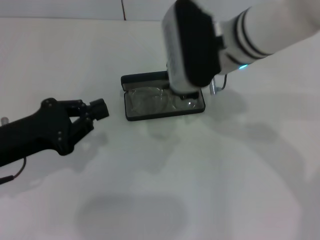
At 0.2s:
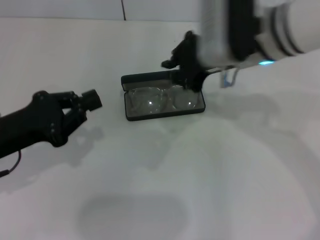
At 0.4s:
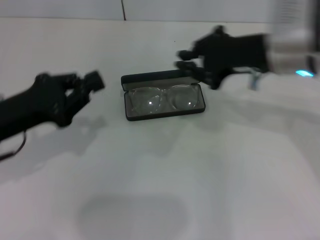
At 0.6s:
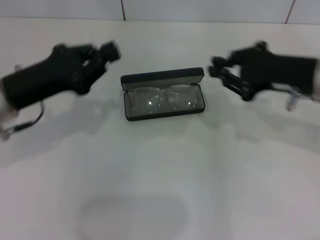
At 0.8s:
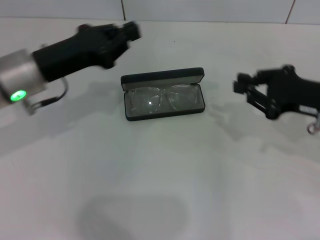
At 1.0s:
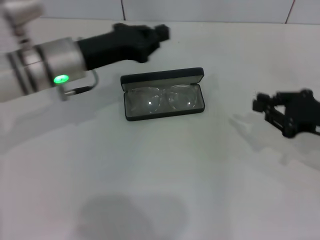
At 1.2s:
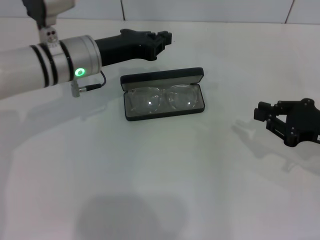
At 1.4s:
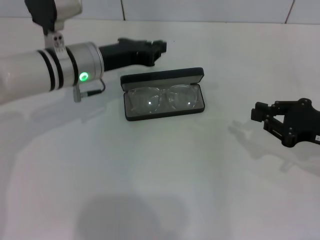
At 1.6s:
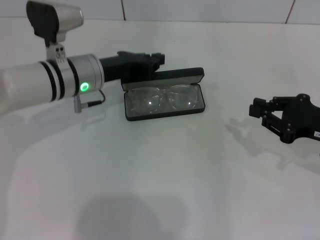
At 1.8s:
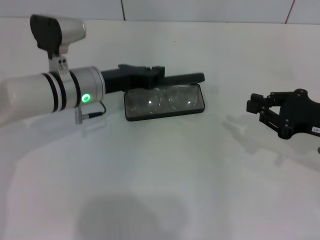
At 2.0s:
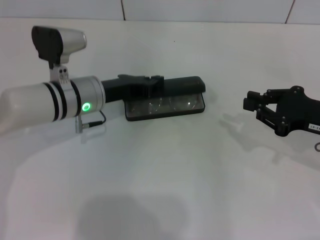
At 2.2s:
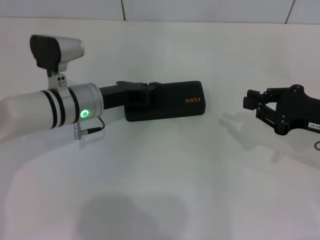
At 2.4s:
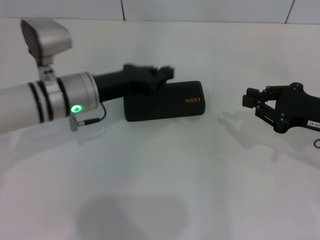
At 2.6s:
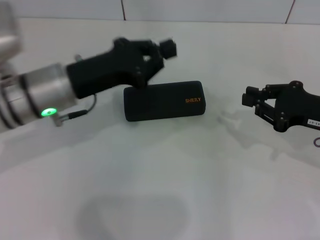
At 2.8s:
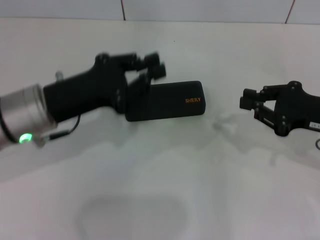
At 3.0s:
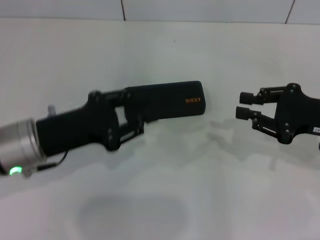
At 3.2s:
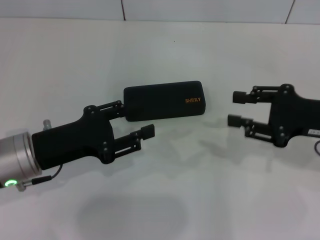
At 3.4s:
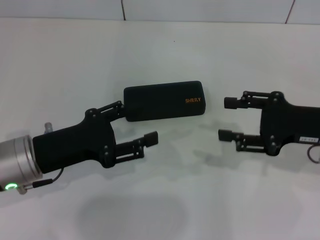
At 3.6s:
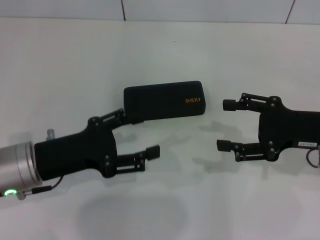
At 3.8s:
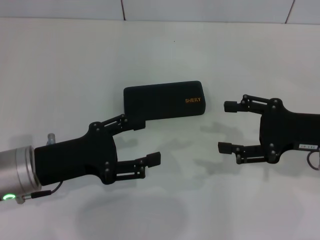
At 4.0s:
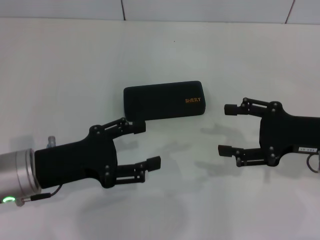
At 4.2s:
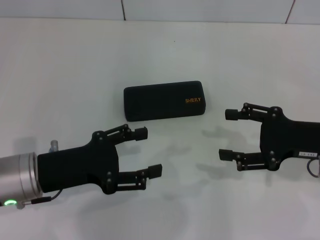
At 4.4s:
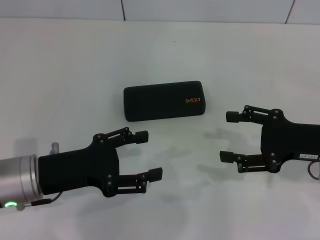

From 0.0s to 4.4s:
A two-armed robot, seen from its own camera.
Step, from 0.2s to 2.0s: Close the glasses case with your left hand.
From 0.0s to 1.4s: The right gripper travels to the right, downward and backward by about 25 cm. The left gripper moves forward and to the right, some 20 cm.
From 1.4s to 3.0s: The left gripper is displaced backward and to the left by roughly 15 cm.
From 3.0s to 4.4s: The left gripper opens up, while the right gripper opens up.

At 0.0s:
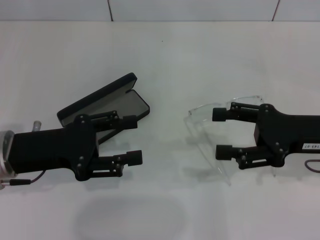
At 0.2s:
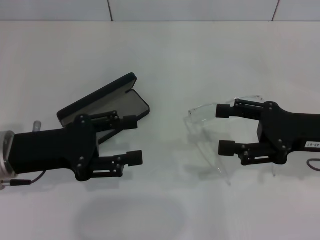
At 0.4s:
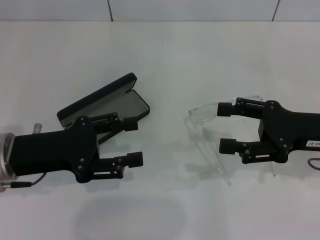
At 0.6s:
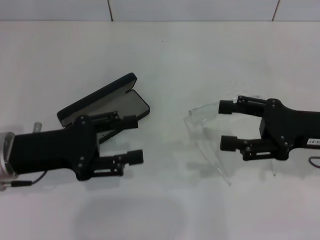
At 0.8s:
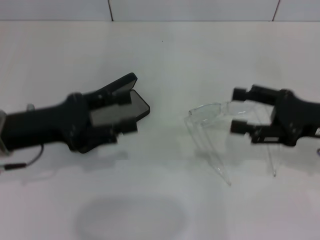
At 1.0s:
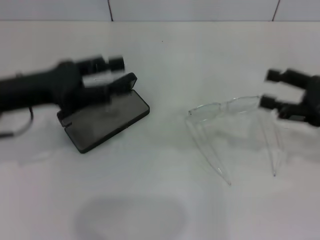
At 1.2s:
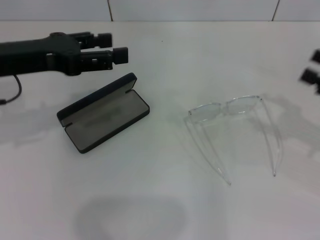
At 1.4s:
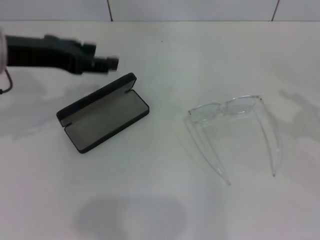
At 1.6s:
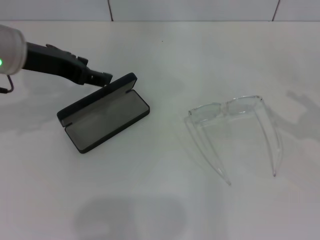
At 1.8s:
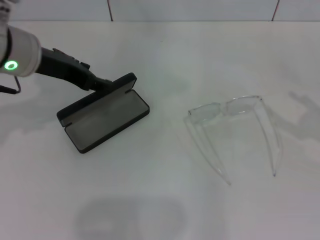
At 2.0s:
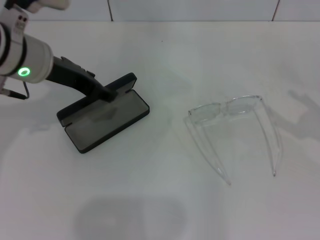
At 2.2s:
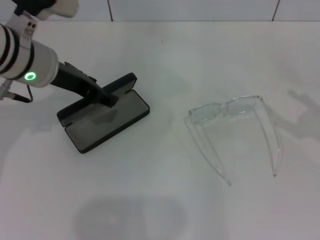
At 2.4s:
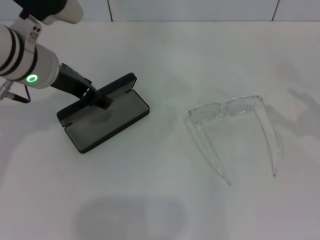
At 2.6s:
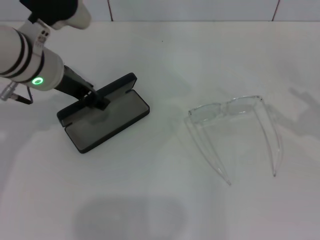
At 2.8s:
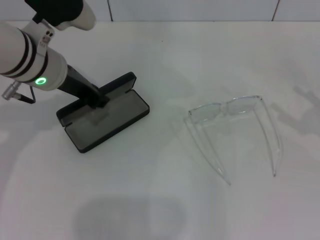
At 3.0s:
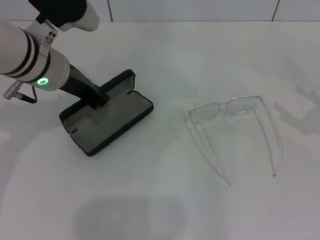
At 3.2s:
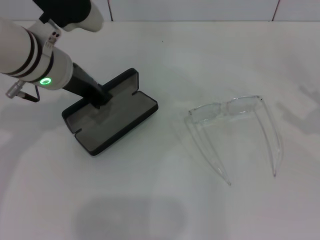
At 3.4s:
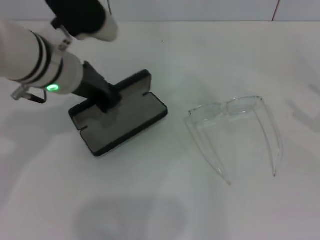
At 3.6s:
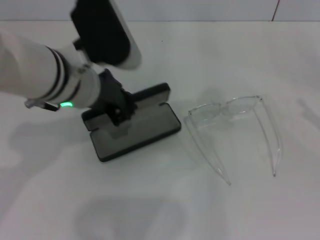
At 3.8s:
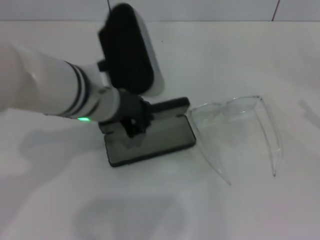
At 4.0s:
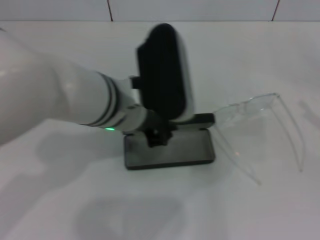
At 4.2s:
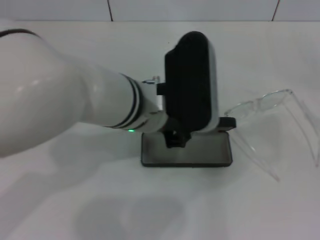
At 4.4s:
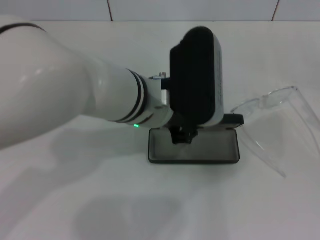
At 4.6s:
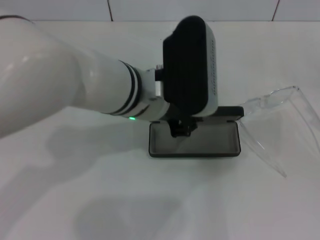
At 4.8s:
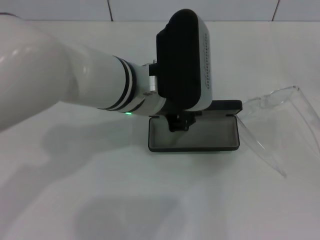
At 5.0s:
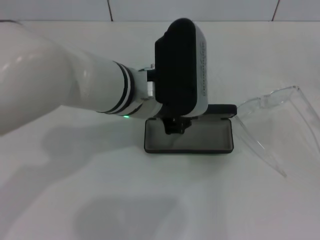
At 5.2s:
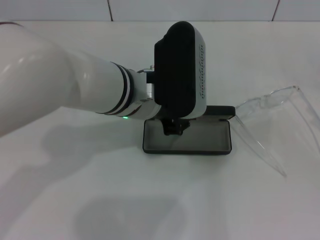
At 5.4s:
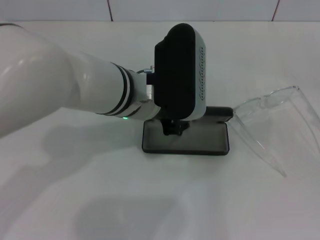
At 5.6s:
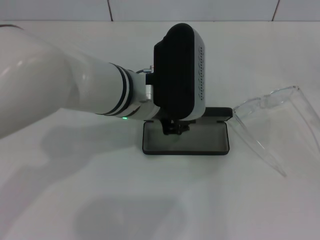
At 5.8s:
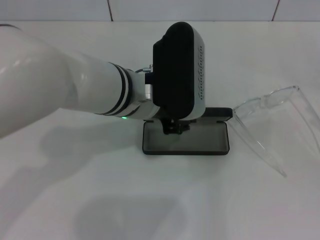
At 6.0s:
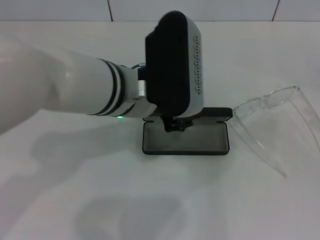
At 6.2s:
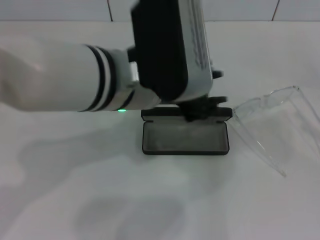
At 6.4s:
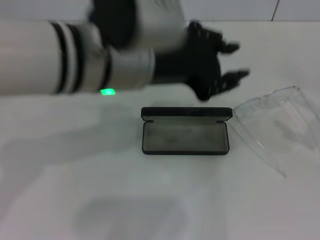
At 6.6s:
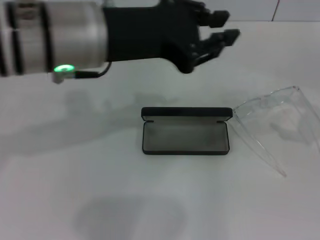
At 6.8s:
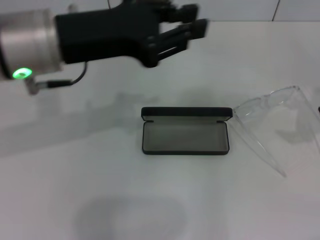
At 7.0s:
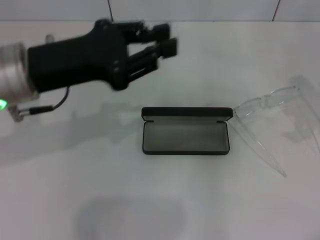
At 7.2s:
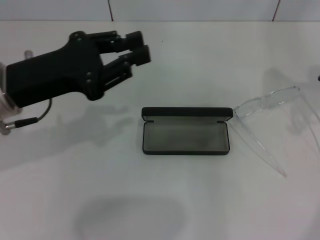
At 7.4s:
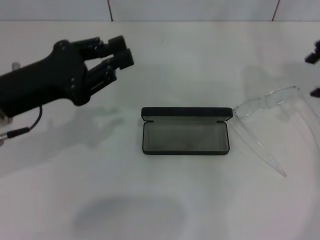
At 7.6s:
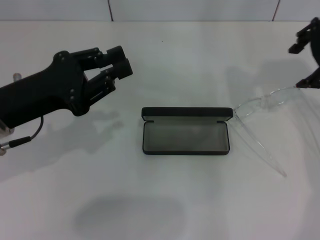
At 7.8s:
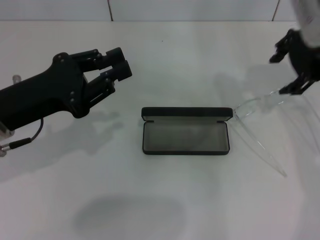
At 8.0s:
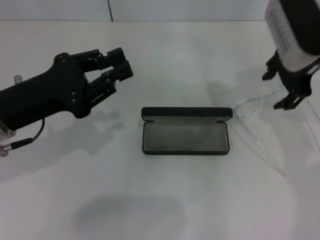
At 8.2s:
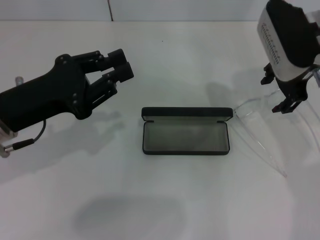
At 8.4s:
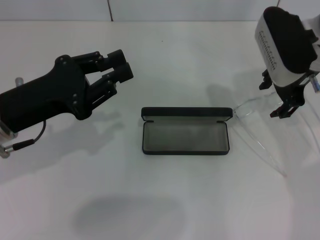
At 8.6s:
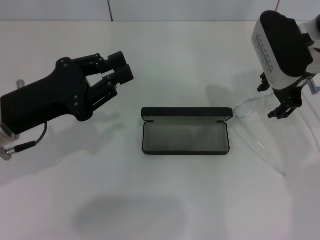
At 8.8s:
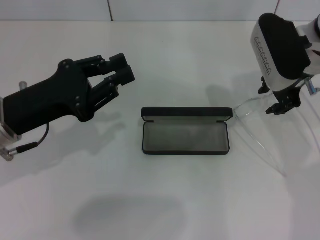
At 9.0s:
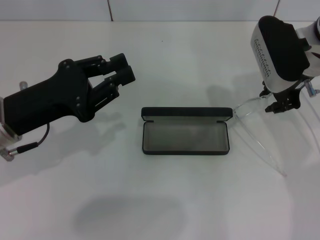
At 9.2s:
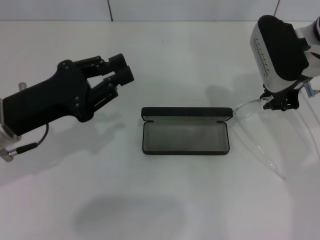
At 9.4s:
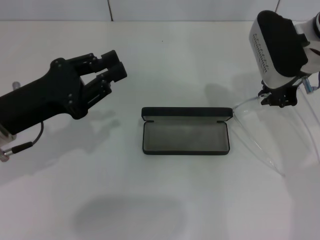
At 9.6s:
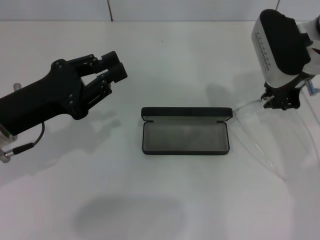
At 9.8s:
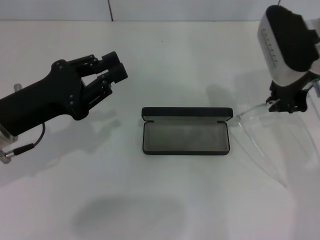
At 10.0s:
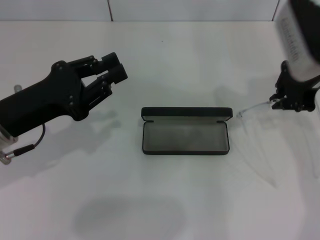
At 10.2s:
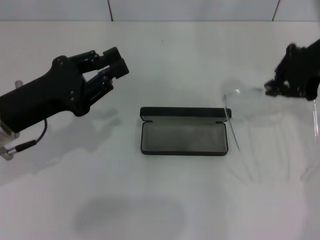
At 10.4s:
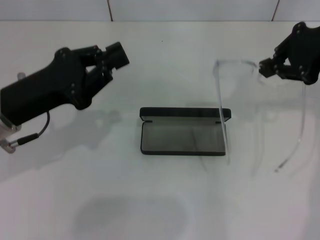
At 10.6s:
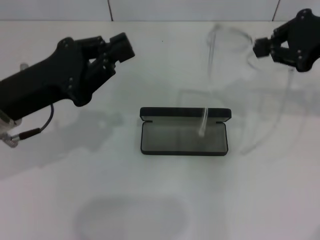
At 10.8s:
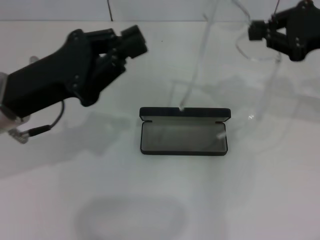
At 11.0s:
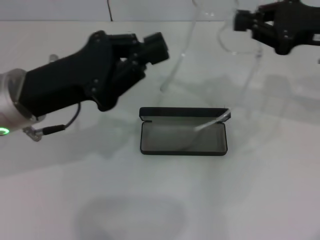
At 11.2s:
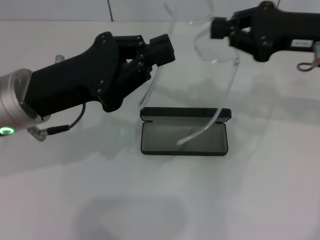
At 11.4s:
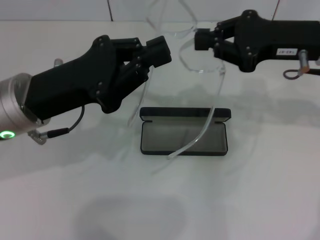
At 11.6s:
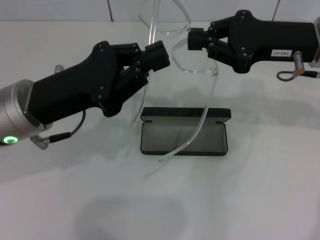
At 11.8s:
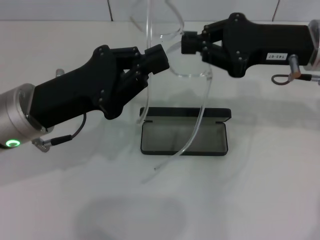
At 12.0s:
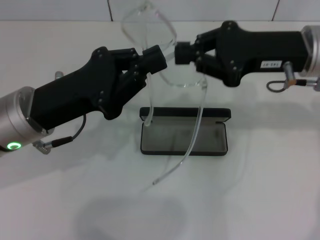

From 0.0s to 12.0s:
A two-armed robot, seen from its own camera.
Step, from 0.0s to 2.8s: Grab the glasses case with your left hand.
Step, from 3.0s to 5.8s: Place the glasses case in the center of the table with your left hand.
Step, from 6.2s to 9.0s: Grab the eyeglass frame with your right hand.
From 0.0s to 1.6s: The right gripper heads to the right, covering approximately 10 cm. Meanwhile the left gripper goes about 15 cm upward and forward.
From 1.6s to 3.0s: The left gripper moves about 5 cm, and closes.
From 3.0s to 4.4s: The left gripper travels to the right and backward by about 15 cm.
From 4.4s to 6.0s: The grippers move only a little.
From 6.0s to 7.6s: The right gripper heads forward, upward and to the left, covering about 30 cm. The left gripper is displaced to the left by roughly 20 cm.
From 7.6s to 9.0s: The right gripper shifts approximately 10 cm downward, and closes its fingers.
From 9.0s to 10.4s: The right gripper travels upward and to the right by some 10 cm, and closes.
From 10.4s to 12.0s: The right gripper goes roughly 10 cm to the left and downward.

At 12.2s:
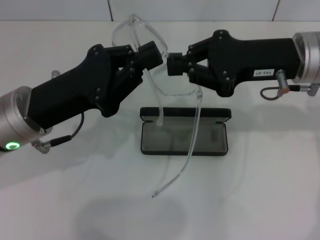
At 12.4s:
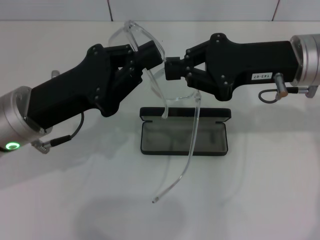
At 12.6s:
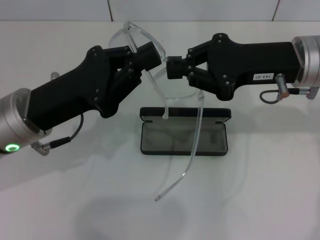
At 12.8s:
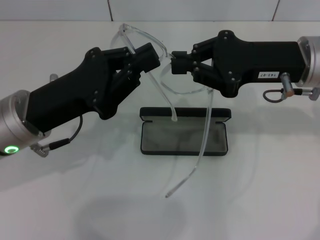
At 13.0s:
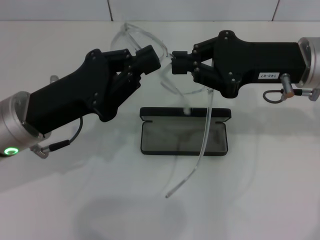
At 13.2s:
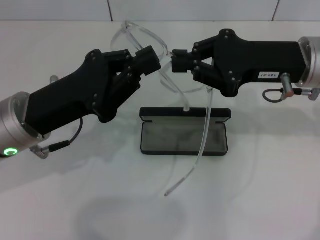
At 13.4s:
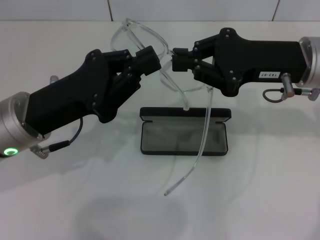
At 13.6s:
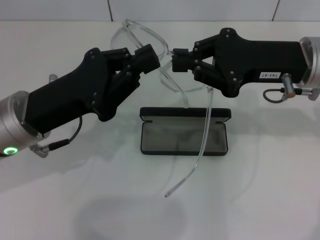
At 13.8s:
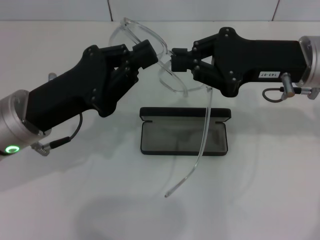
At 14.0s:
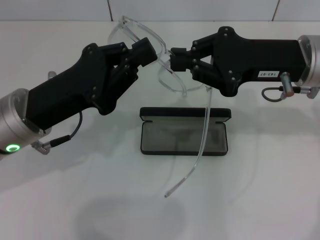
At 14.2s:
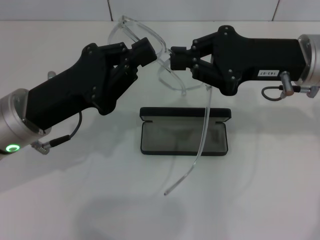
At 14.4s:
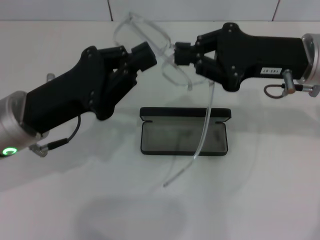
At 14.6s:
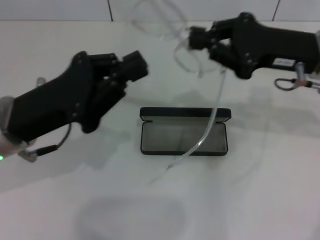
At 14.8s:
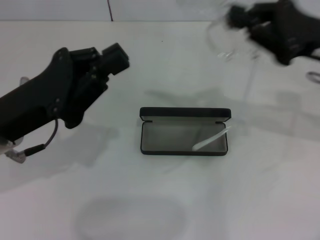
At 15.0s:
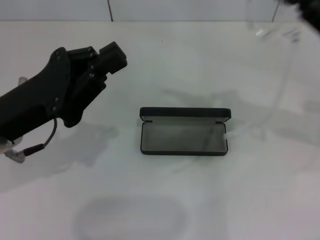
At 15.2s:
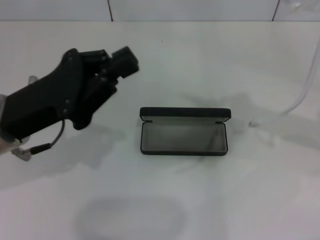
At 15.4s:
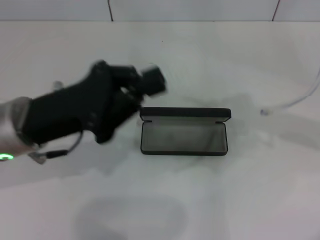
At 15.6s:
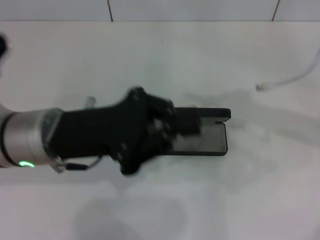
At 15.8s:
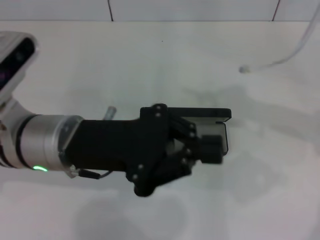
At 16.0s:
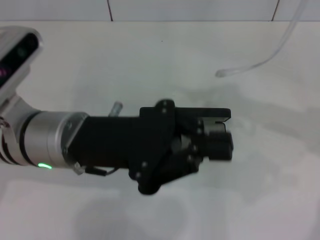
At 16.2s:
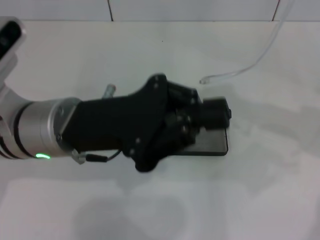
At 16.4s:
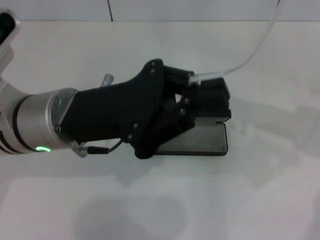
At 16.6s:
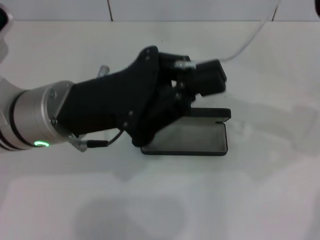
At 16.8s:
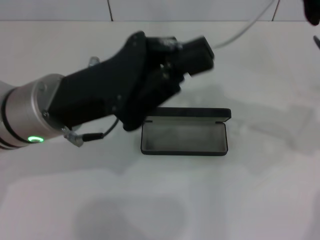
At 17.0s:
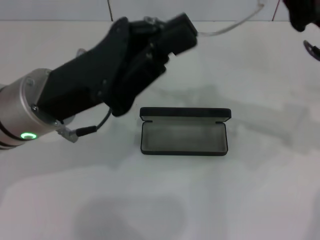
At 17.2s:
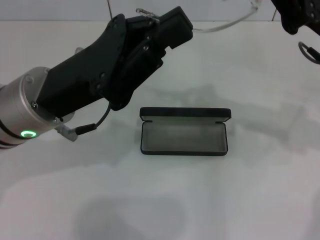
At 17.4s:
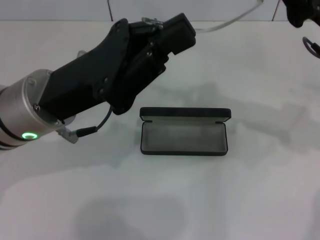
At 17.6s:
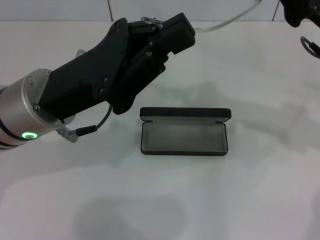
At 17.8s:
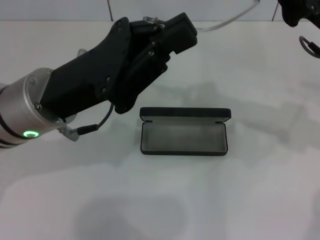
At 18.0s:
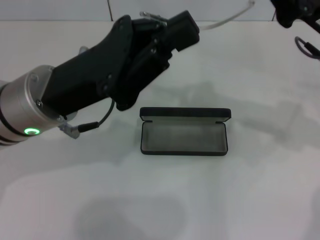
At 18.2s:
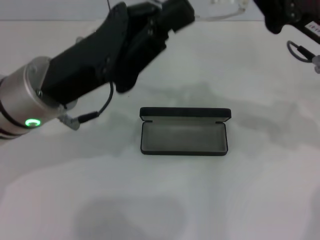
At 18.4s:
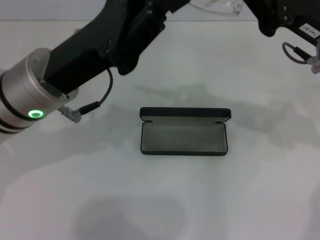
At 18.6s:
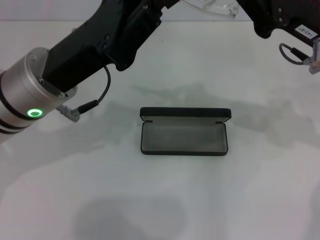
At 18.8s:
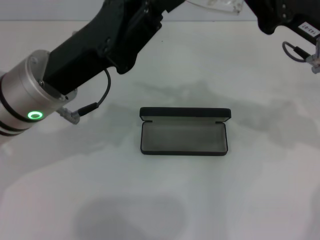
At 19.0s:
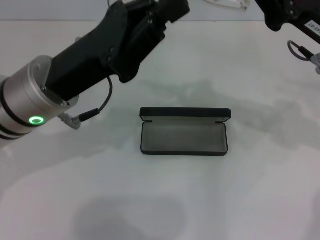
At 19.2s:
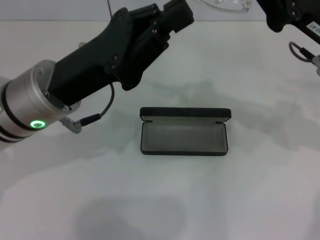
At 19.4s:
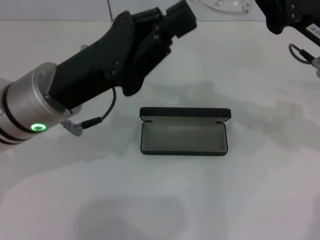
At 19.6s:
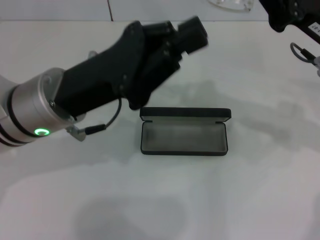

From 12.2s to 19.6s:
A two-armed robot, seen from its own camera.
Step, from 12.2s to 18.8s: Fold the frame with your left hand.
From 12.2s to 13.6s: The two grippers keep their place.
From 13.6s to 15.2s: The right gripper moves to the right, some 10 cm.
From 15.2s to 16.6s: The right gripper moves to the left, roughly 5 cm, while the left gripper moves to the right, approximately 5 cm.
From 18.2s to 19.6s: The grippers make only small movements.
